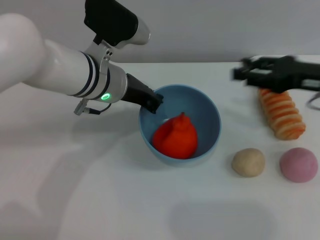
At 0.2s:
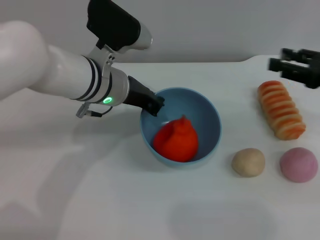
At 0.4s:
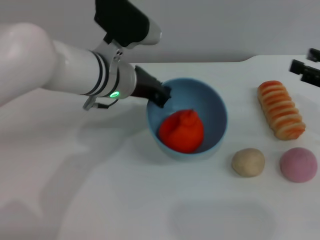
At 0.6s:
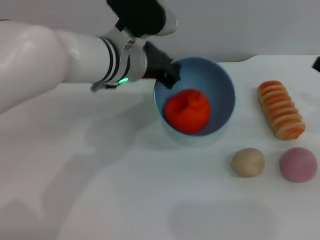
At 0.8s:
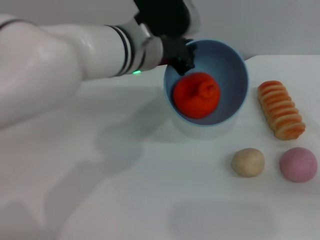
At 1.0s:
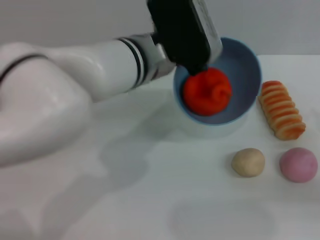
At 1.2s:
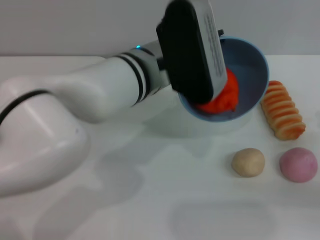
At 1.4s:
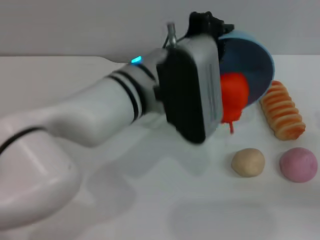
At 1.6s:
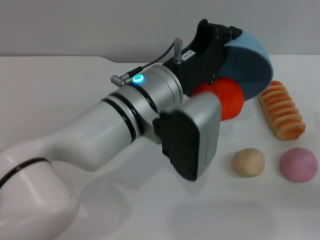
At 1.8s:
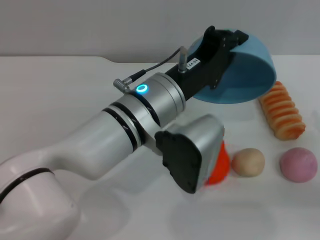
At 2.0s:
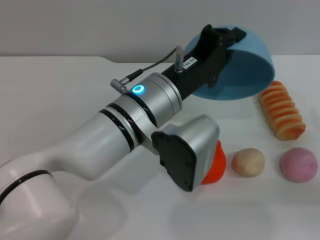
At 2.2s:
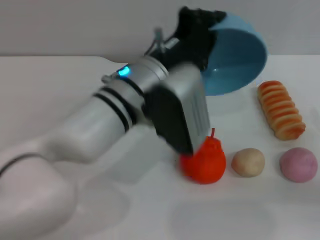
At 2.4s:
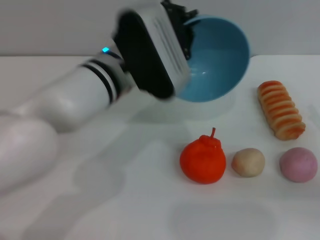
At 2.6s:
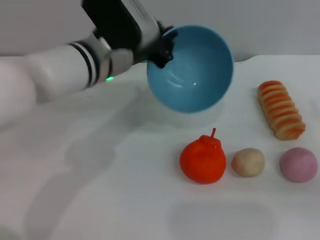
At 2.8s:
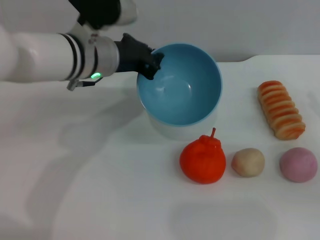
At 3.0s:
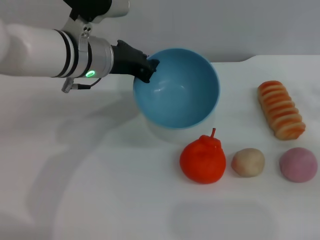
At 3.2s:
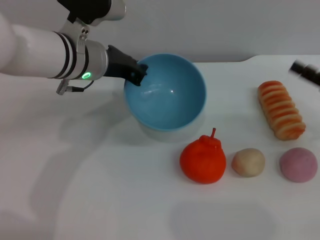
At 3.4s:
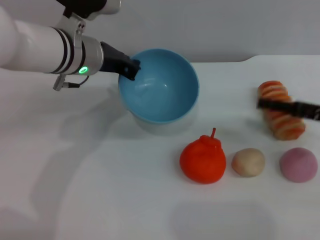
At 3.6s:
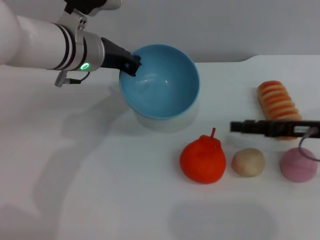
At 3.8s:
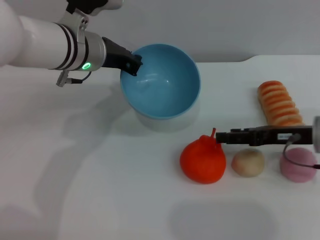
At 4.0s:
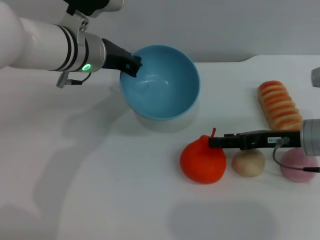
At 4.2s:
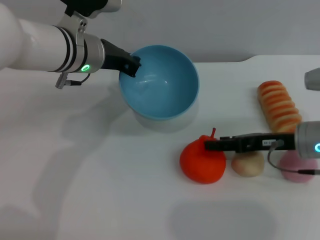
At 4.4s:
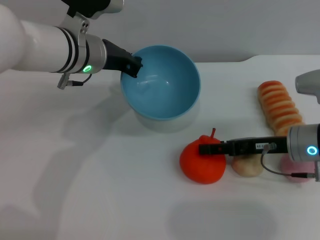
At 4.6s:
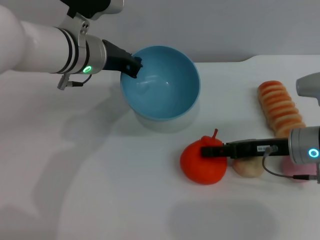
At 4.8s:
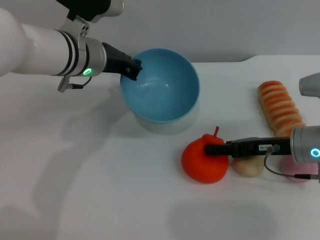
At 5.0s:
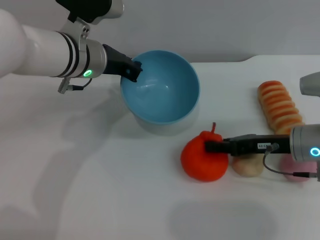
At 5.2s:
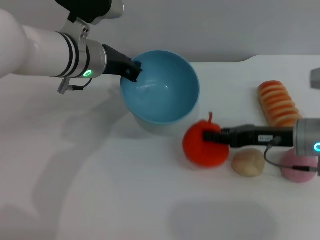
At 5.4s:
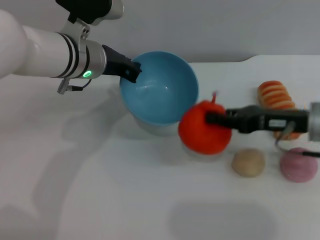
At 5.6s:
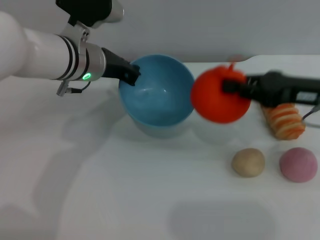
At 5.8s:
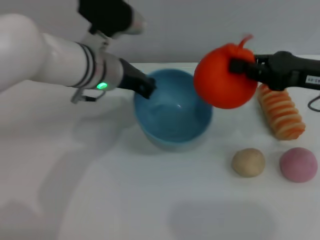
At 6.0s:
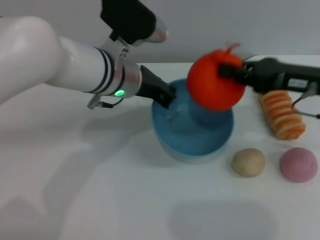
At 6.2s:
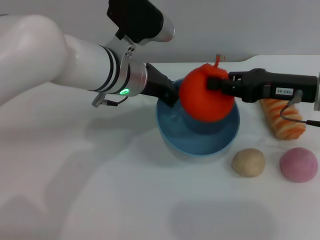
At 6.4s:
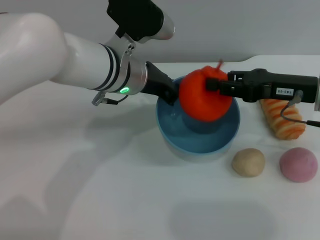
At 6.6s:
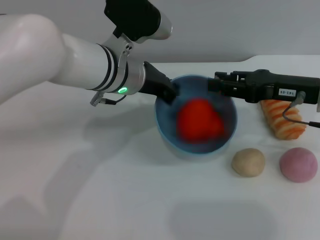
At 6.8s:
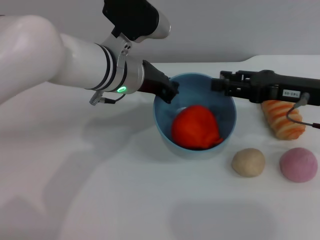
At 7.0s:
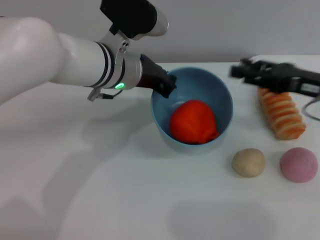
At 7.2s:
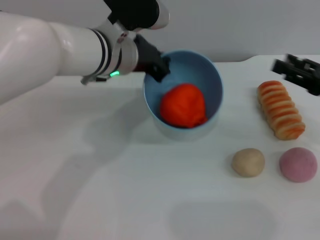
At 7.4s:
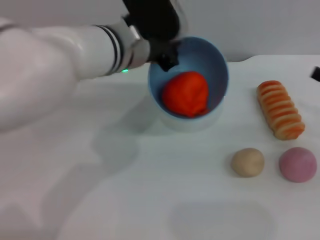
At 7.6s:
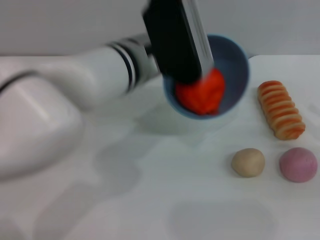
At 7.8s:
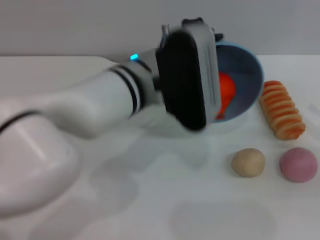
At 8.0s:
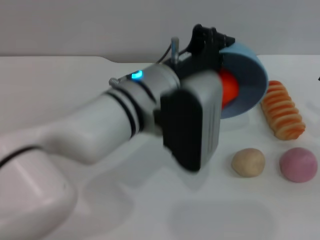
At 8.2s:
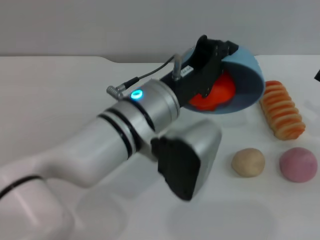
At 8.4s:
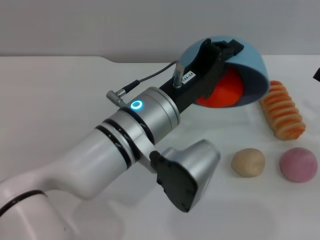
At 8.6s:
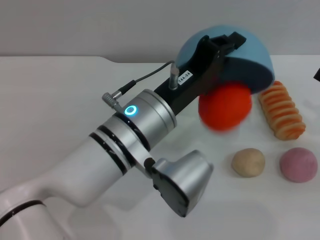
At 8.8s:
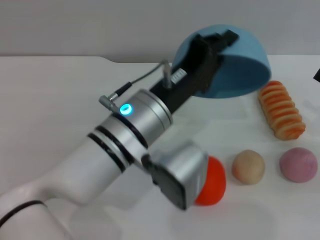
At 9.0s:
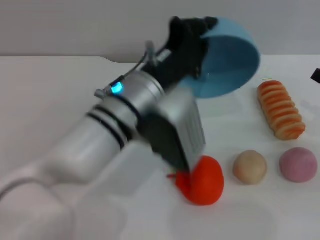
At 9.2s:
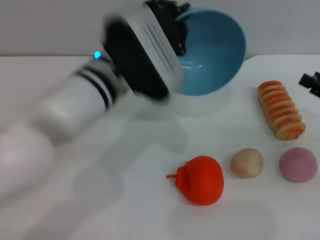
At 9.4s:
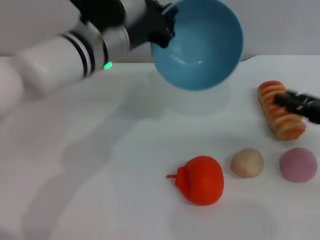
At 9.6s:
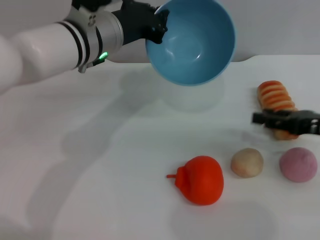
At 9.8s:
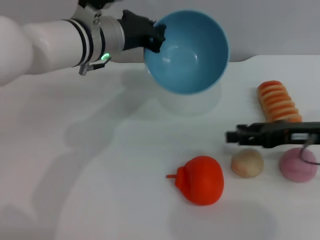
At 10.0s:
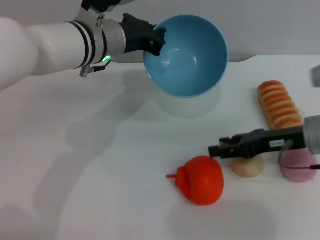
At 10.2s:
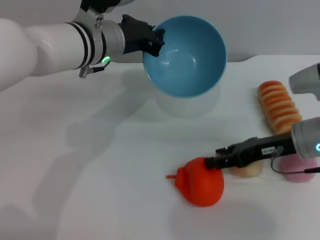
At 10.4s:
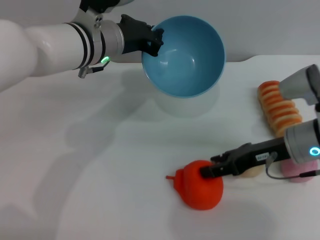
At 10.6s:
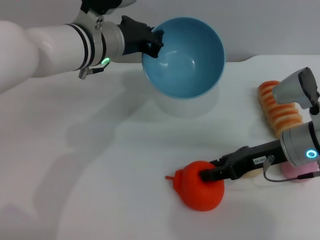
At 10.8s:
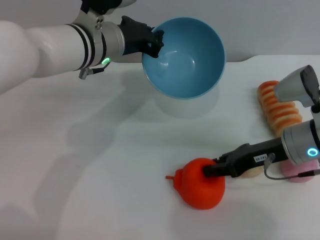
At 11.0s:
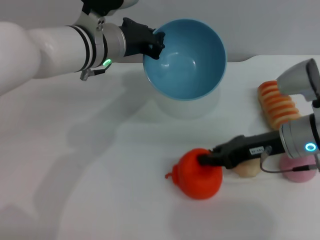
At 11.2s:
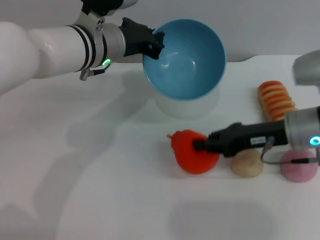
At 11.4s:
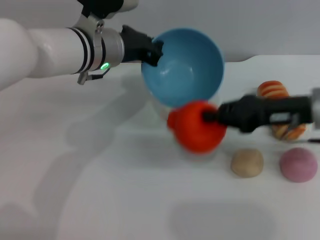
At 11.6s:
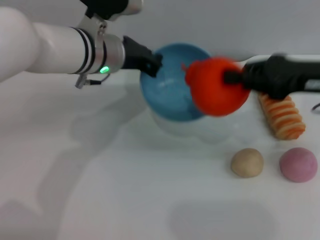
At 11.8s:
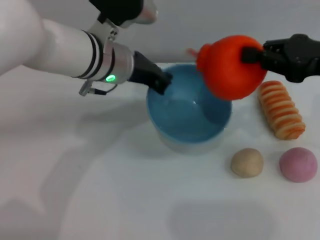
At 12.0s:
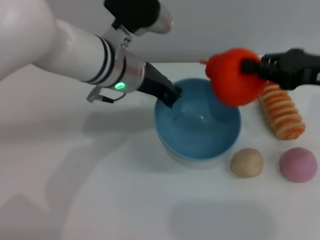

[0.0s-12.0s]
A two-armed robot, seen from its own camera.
Task of the whole recording: put the orange into the blue bowl and pour it out repeatedly.
Step, 0.0s to 2.2s: Pour the orange out of the bowl.
Step, 2.6s to 5.8s: Pick up the orange with the right gripper.
Step, 6.0s to 7.0s: Place the orange into the bowl.
Step, 7.2s to 8.6s: Pour the orange out of the bowl.
Step, 8.8s to 11.4s: Pick up the orange with the right gripper.
0.0s to 1.6s: The right gripper heads backward, downward and to the right, covering some 20 cm, and opens; the left gripper heads backward and to the right, covering approximately 10 cm.
1.6s to 3.0s: The left gripper goes approximately 10 cm forward and to the left; the right gripper moves forward, approximately 5 cm.
3.0s to 4.4s: The right gripper is displaced to the left by about 10 cm.
4.4s to 6.0s: The left gripper shifts by about 5 cm; the right gripper is displaced upward by about 10 cm, and closes.
6.0s to 7.6s: The right gripper goes roughly 15 cm to the right, backward and downward, and opens its fingers, while the left gripper shifts by some 5 cm.
7.6s to 9.0s: The left gripper travels backward by roughly 5 cm.
9.0s to 10.4s: The left gripper is displaced forward and to the left by about 15 cm, while the right gripper goes roughly 15 cm to the left.
10.4s to 12.0s: The right gripper goes about 10 cm upward and to the right, and closes.

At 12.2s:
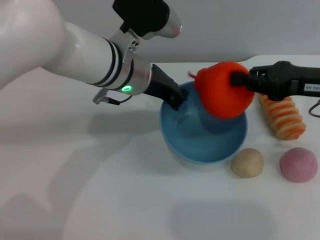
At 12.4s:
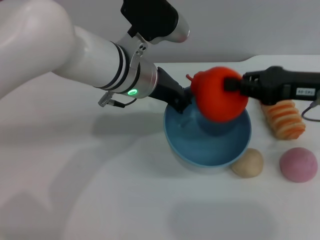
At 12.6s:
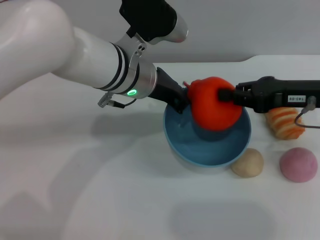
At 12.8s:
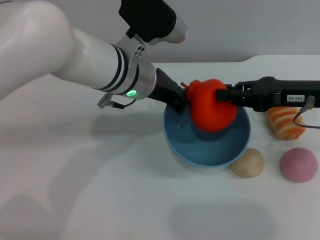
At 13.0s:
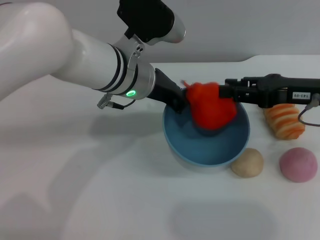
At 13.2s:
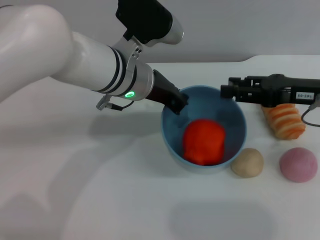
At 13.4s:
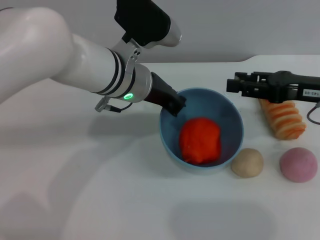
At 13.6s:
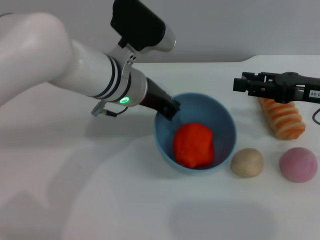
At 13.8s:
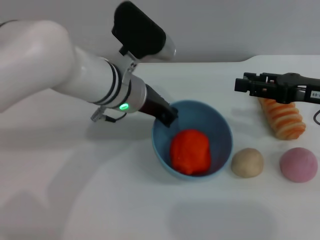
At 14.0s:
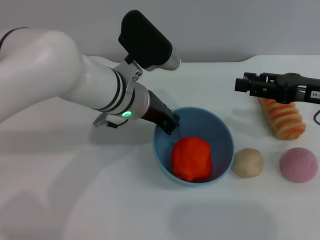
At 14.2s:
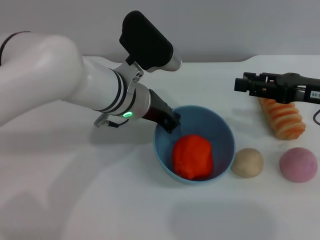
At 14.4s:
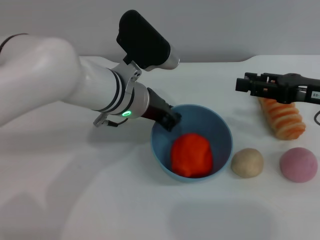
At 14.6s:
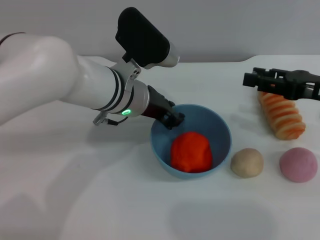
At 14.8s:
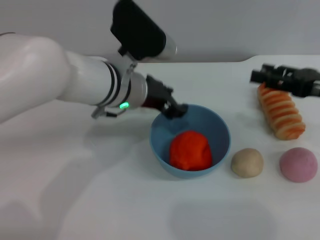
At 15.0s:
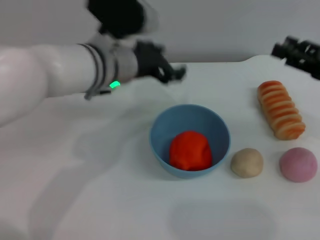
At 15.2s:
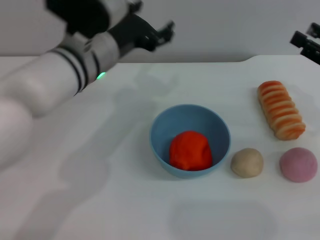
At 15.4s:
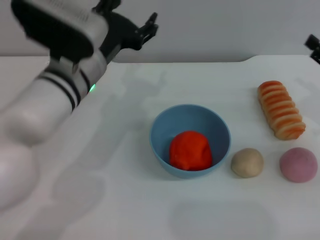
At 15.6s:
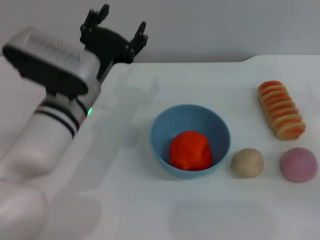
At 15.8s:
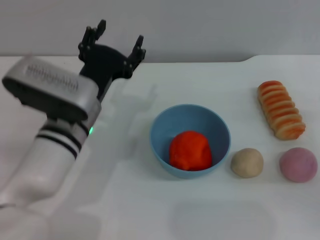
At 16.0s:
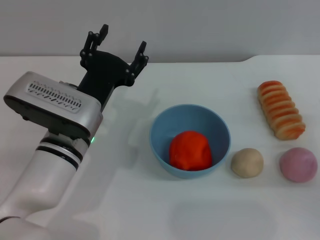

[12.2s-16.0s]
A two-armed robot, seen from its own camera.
Task of the whole recording: put the orange into the blue bowl and pour it out repeatedly.
Step, 12.2s to 13.0s: Place the orange into the bowl.
Step, 13.4s to 14.8s: Place the bowl on the table.
12.2s to 13.4s: The right gripper opens up.
13.4s to 14.8s: The left gripper opens.
14.8s to 16.0s: The left gripper moves backward, downward and to the left, about 10 cm, and opens its fingers; the right gripper goes about 10 cm downward.

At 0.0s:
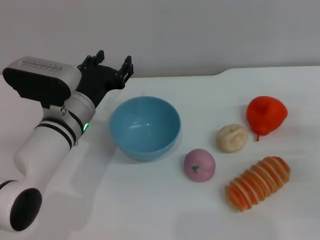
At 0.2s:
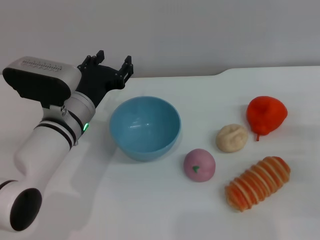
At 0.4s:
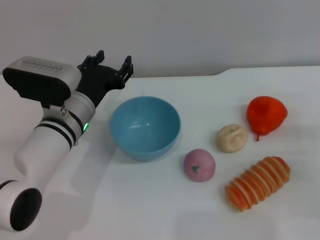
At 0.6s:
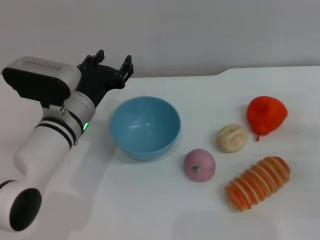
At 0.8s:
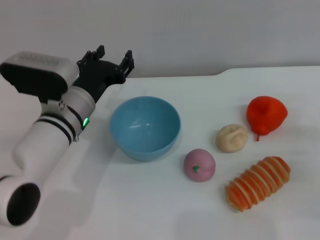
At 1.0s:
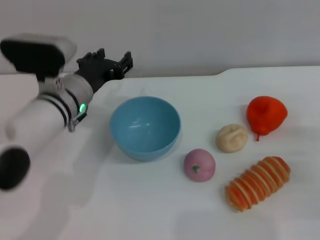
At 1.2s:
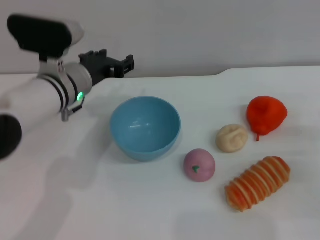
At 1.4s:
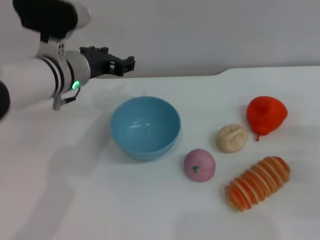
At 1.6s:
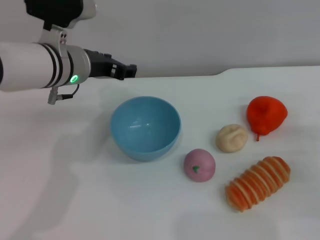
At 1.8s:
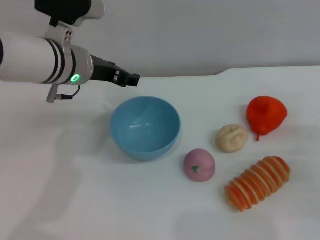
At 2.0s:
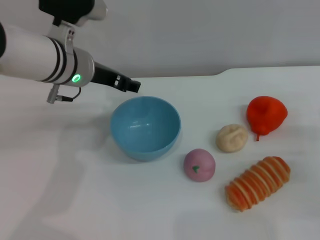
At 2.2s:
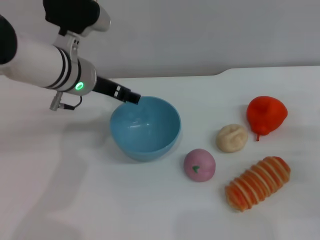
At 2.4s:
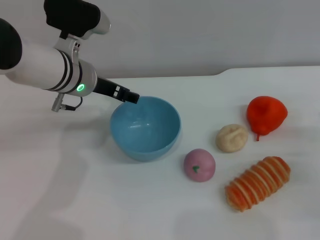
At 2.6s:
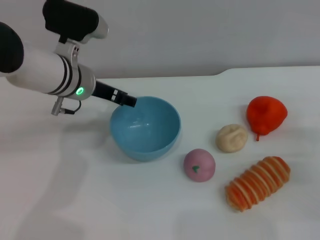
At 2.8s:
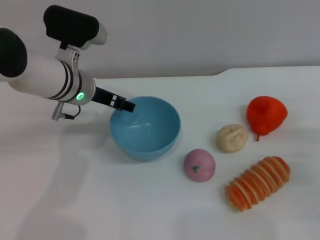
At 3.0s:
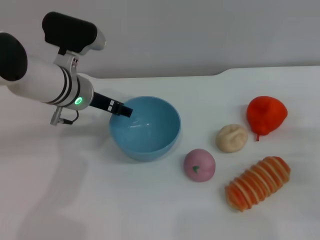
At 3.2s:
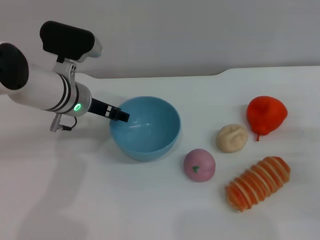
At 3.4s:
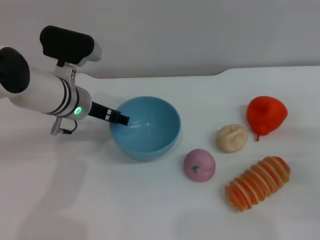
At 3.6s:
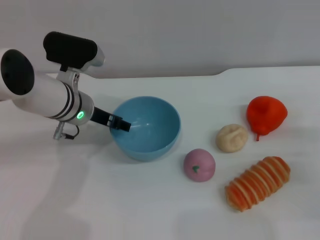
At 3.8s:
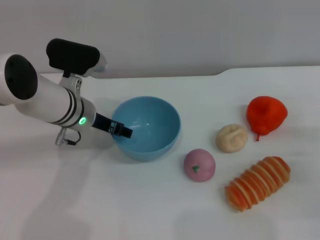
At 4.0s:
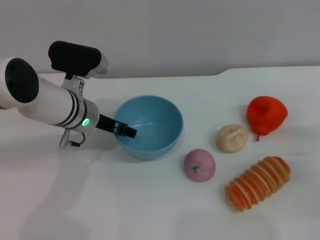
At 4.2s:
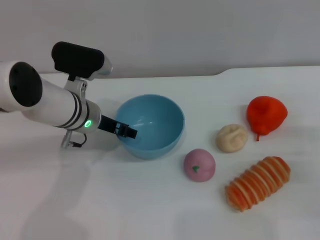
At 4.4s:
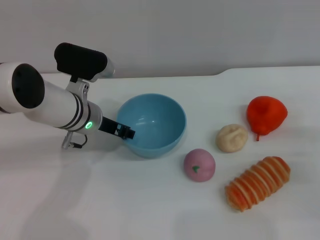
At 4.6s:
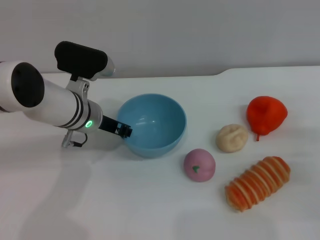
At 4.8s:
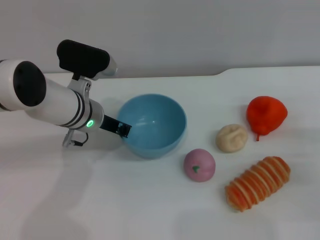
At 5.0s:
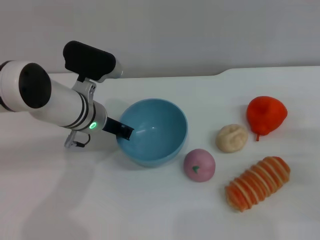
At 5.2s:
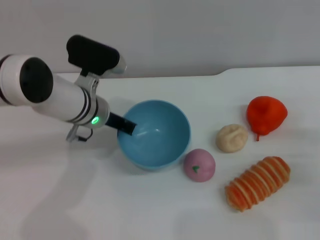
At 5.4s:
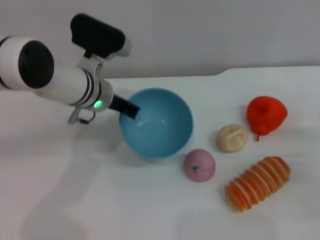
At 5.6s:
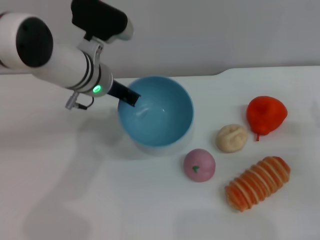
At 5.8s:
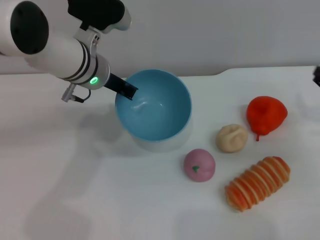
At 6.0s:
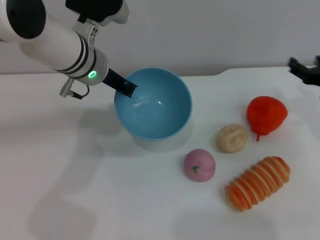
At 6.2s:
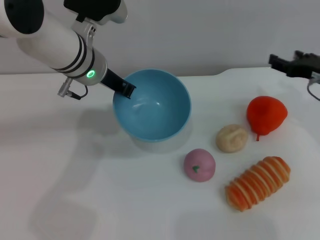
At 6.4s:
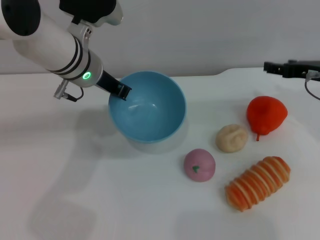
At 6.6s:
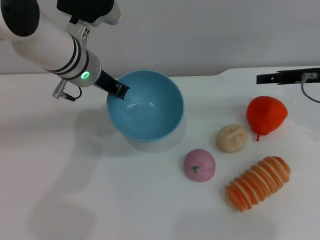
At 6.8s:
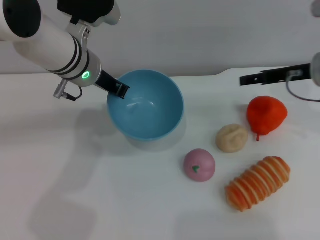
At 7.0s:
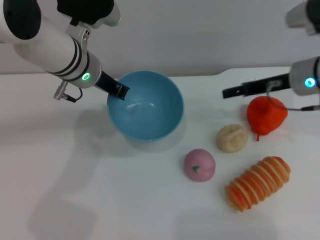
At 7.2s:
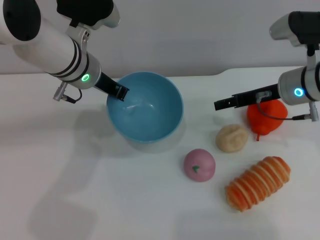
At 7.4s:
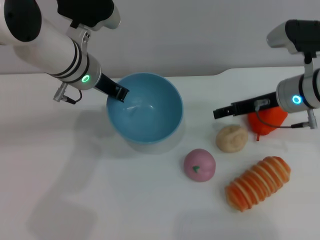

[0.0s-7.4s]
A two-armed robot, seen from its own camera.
Task of the whole recording: put the egg yolk pastry into the blue bowl and pour it out repeatedly.
Step, 0.0s to 6.4s: Pick up the bowl with the left gripper.
0.0s to 1.4s: The left gripper heads upward, covering some 10 cm.
3.0s to 4.4s: The grippers move only a little.
4.4s to 6.0s: The right gripper moves forward, roughly 5 cm. The left gripper travels upward by roughly 10 cm, and closes its fingers.
6.0s to 7.4s: The right gripper moves to the left, about 10 cm.
